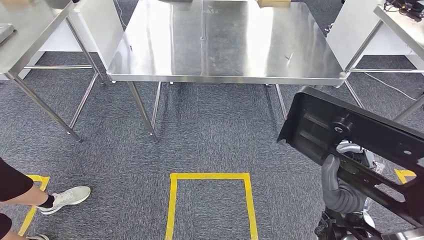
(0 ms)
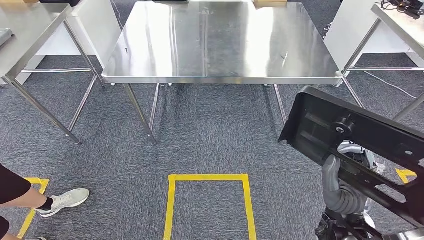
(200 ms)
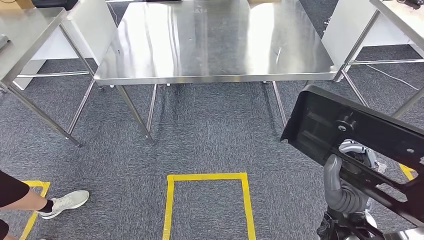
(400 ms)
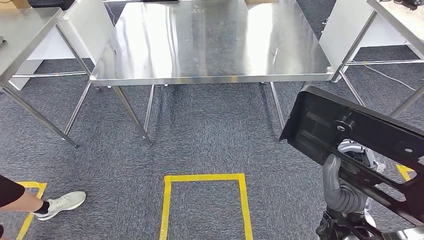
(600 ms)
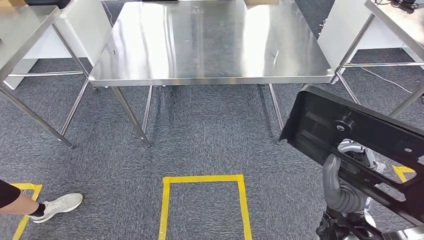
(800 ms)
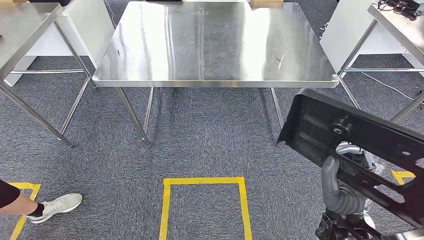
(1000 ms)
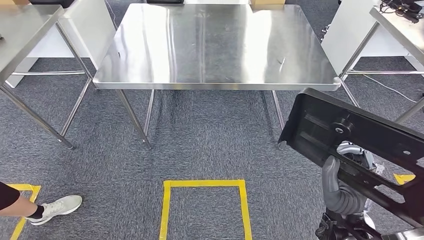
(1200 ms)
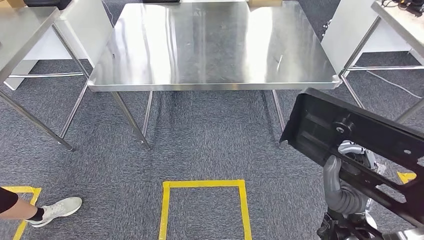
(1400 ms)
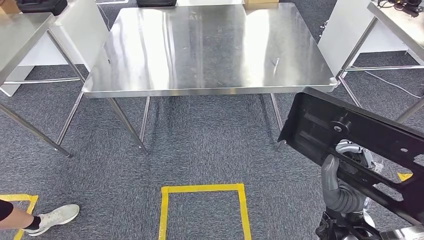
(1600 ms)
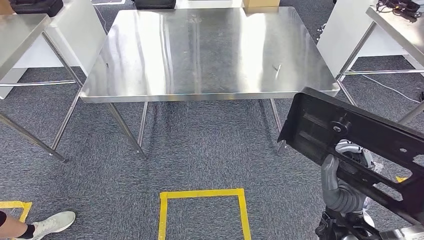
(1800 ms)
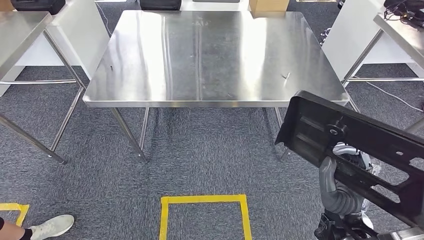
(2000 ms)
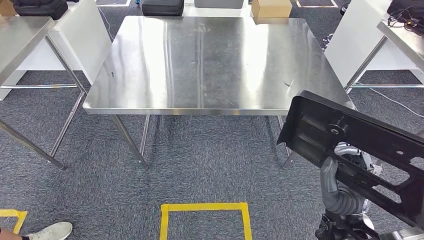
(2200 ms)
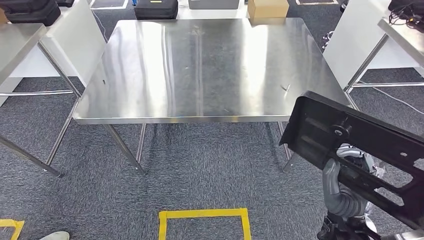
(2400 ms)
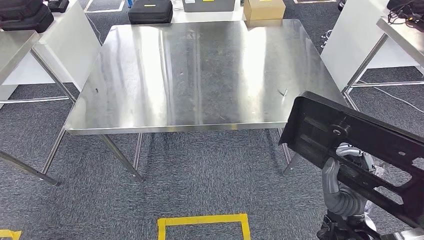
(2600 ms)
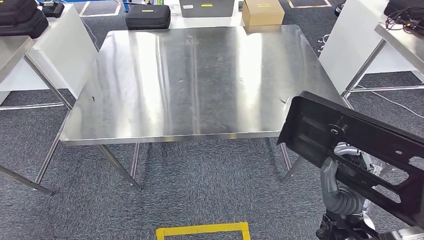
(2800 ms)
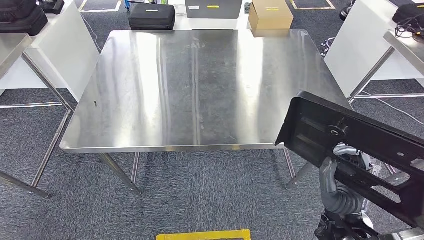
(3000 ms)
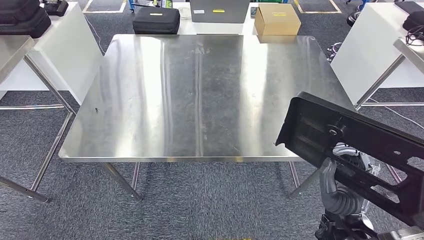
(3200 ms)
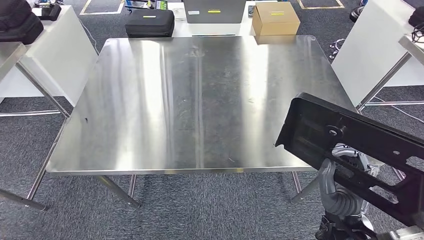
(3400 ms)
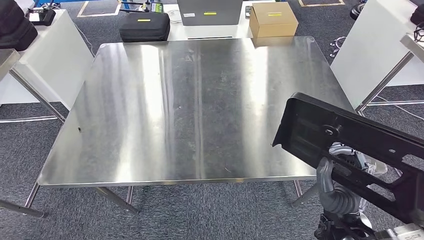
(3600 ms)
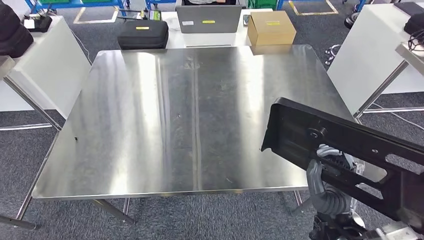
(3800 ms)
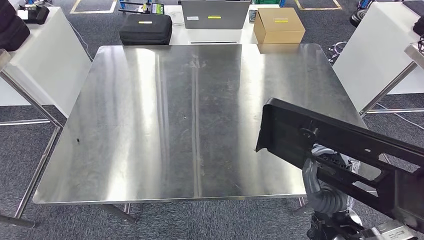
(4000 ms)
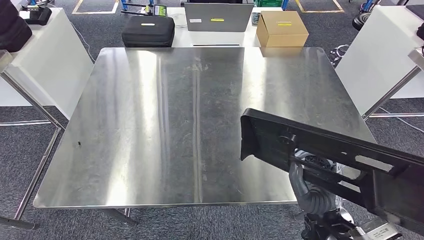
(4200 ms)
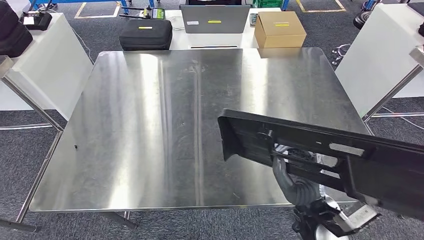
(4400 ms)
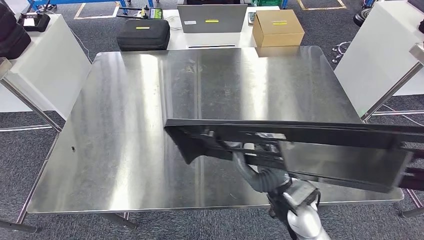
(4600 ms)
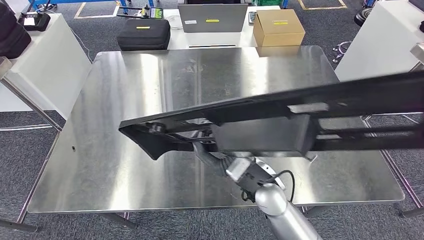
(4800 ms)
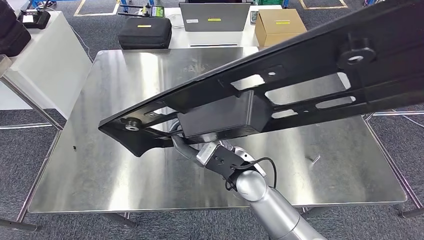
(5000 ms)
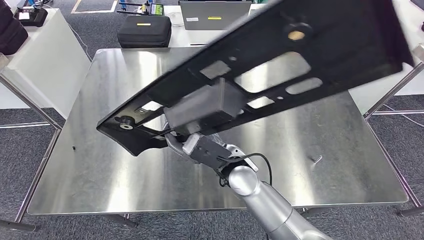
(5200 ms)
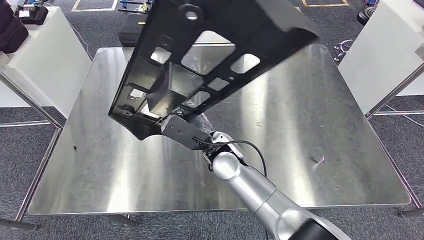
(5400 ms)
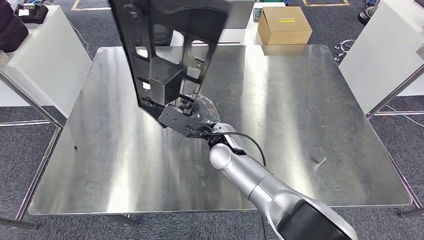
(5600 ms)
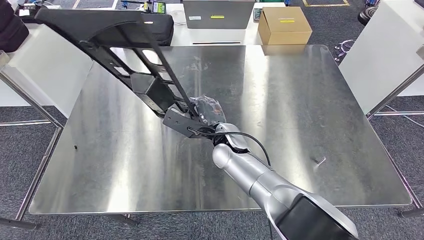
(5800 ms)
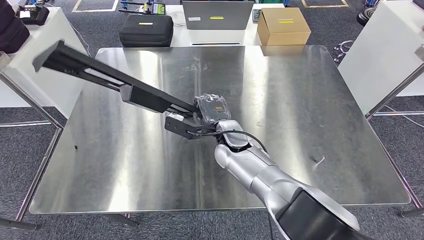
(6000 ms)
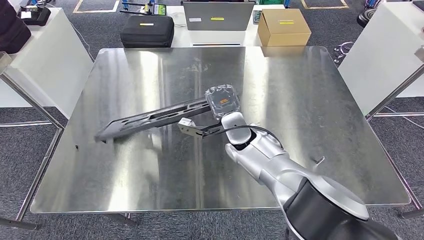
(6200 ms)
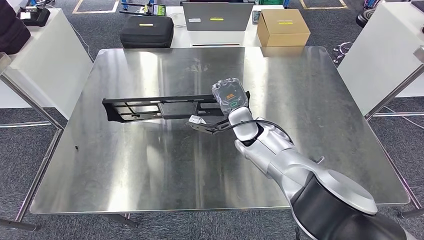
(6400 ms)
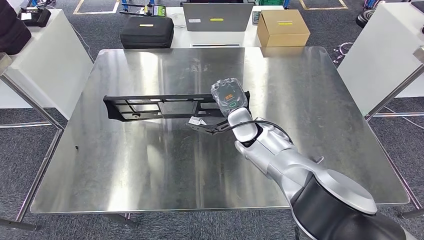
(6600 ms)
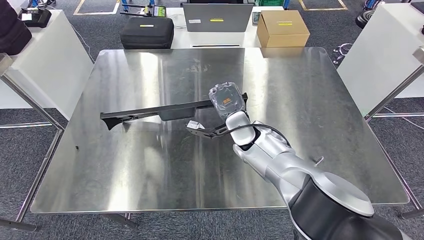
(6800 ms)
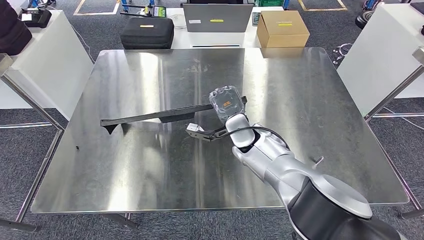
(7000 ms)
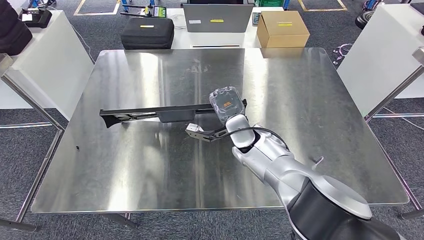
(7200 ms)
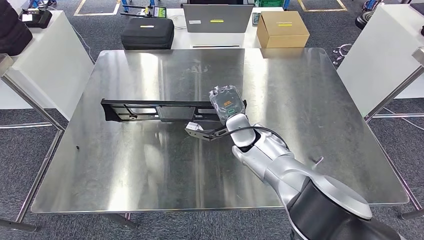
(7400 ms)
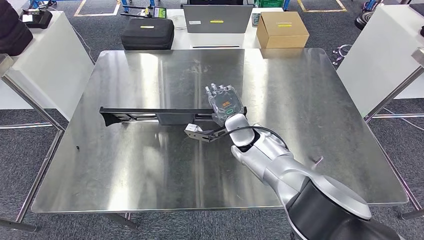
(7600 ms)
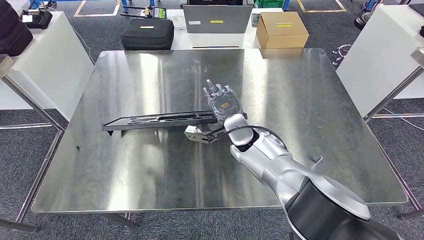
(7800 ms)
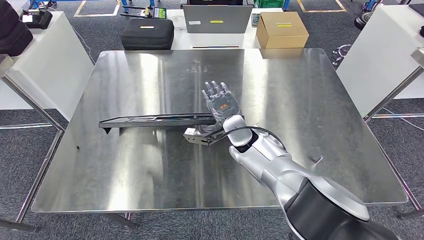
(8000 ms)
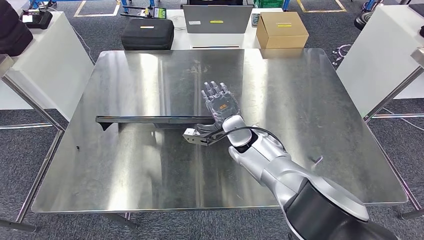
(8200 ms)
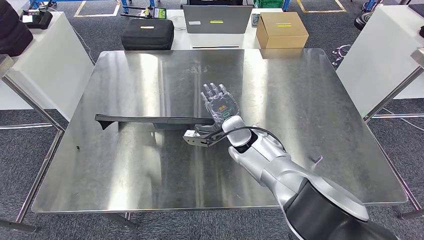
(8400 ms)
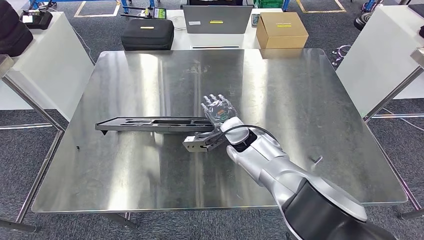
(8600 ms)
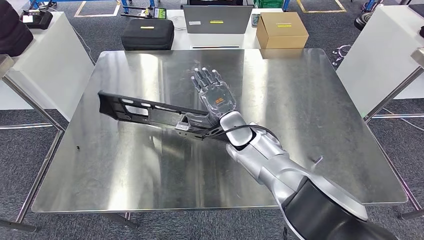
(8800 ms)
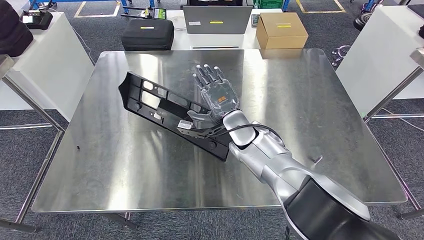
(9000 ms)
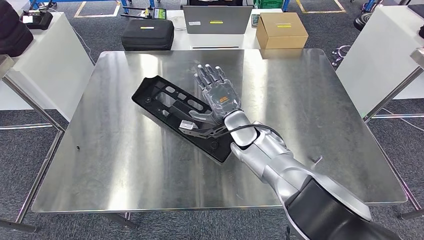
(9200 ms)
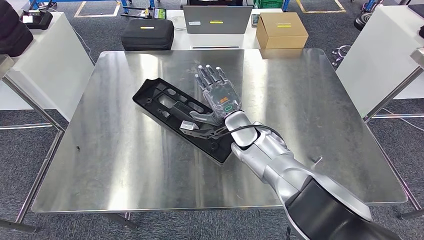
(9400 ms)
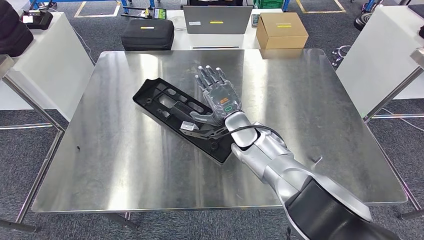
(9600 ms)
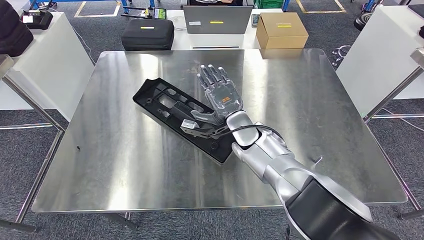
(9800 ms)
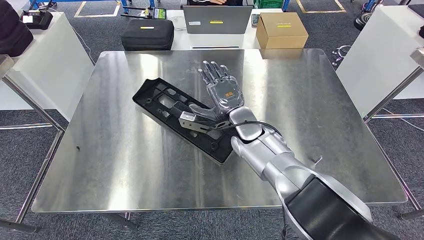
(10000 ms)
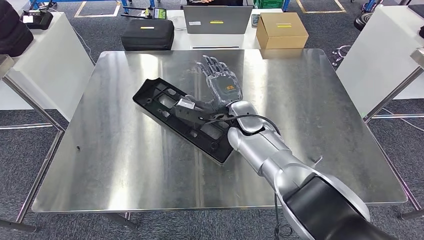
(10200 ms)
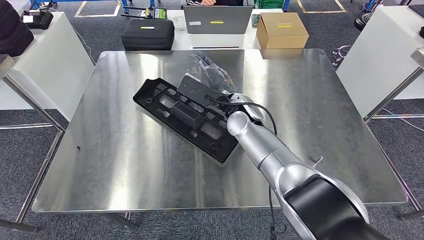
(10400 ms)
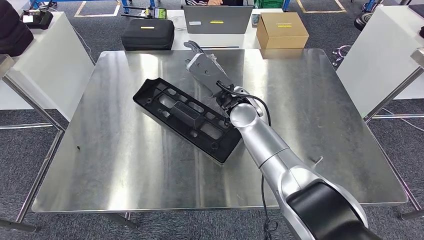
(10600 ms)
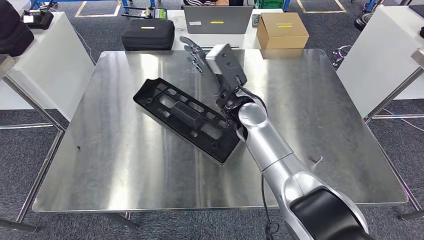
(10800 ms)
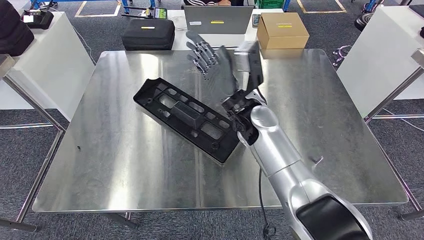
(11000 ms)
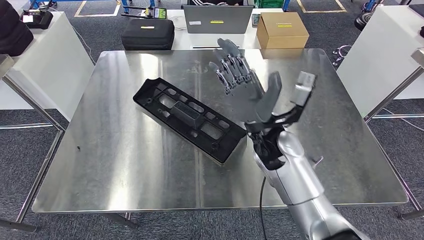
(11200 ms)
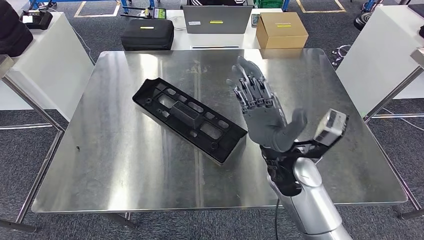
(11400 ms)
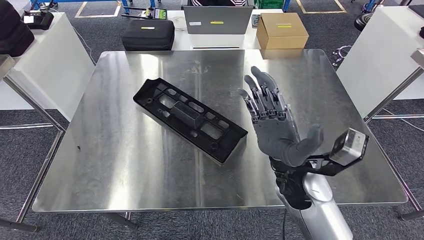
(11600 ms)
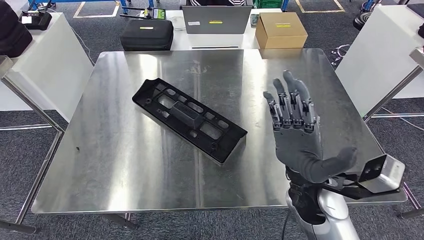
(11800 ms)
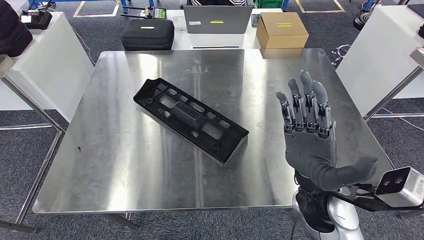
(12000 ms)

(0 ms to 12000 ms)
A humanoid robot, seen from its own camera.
Step, 0 ms - 2600 ms: Move the large material to the workbench.
Step, 3600 ms - 10600 ms: Insert the large material into the corresponding slot on the workbench.
7600 ms - 9000 ms: The hands move only a little.
10400 ms - 12000 ms: The right hand travels backward and to the right by some 25 cm.

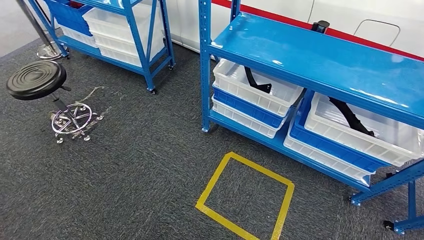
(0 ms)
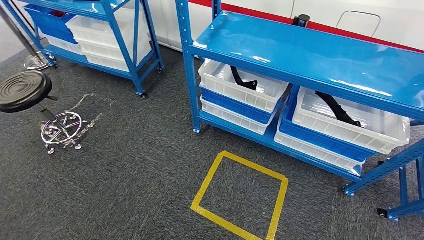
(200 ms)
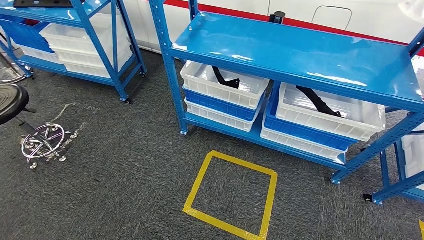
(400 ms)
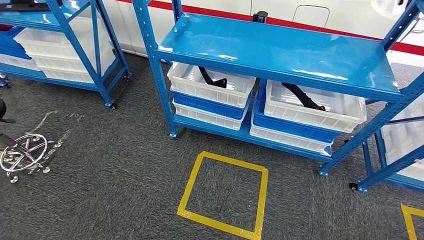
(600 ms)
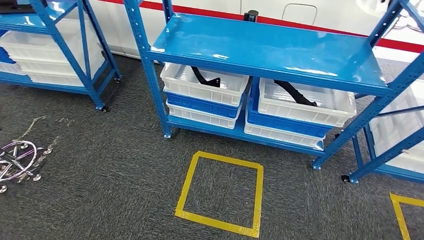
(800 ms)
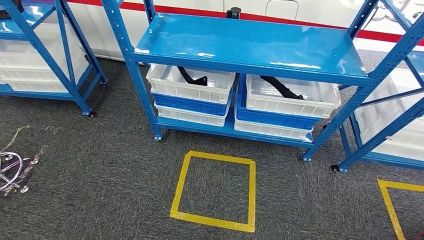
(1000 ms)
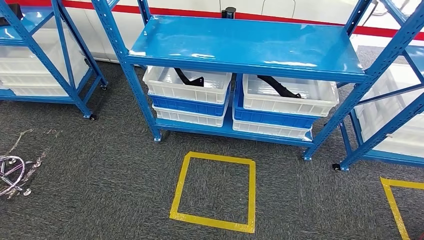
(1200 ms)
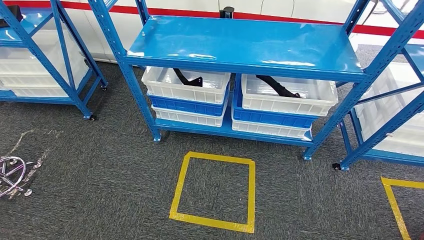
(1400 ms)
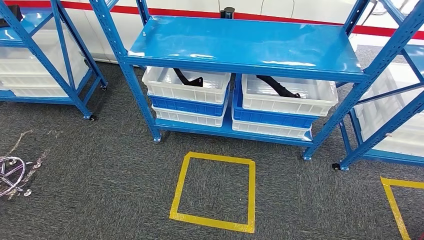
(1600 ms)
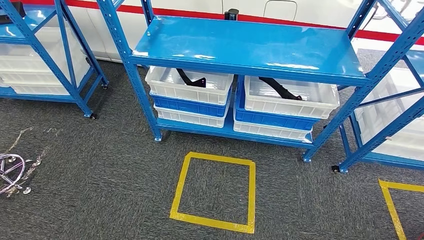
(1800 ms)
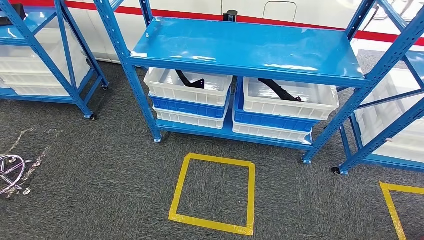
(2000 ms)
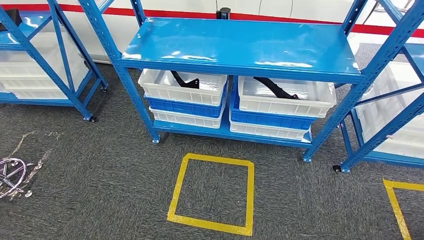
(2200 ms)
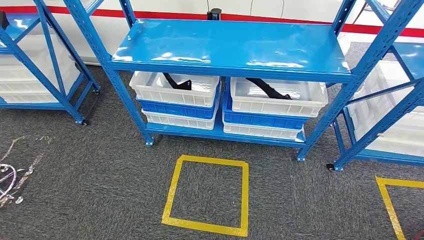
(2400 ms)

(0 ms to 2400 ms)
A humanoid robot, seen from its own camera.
Step, 0 ms - 2400 ms: Return to the initial position at the shelf.
